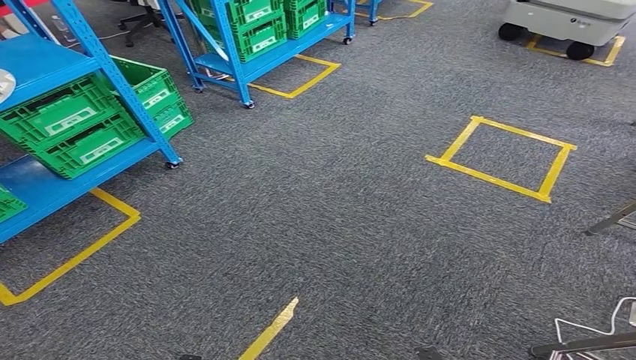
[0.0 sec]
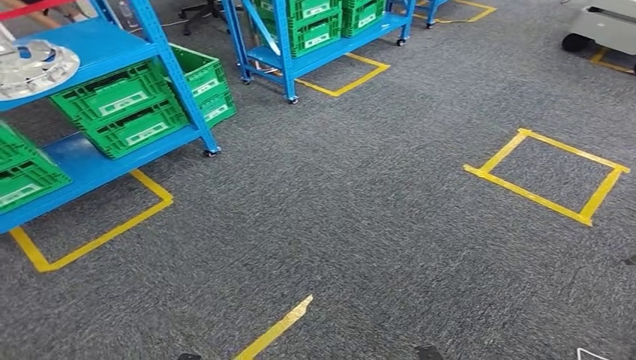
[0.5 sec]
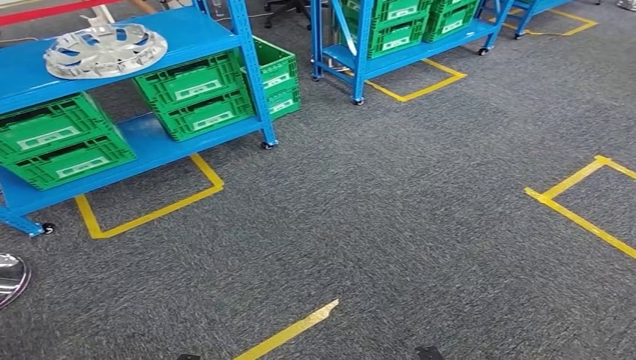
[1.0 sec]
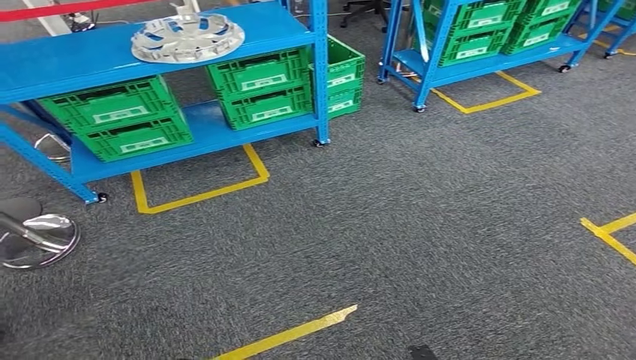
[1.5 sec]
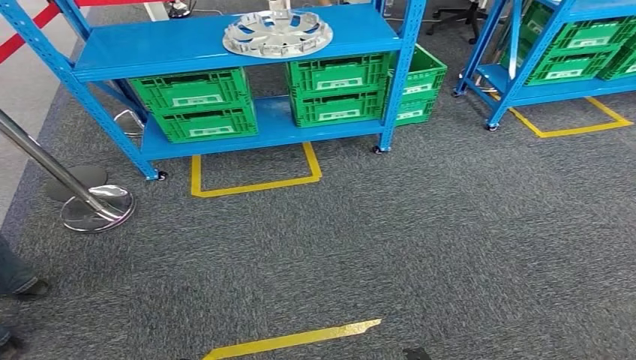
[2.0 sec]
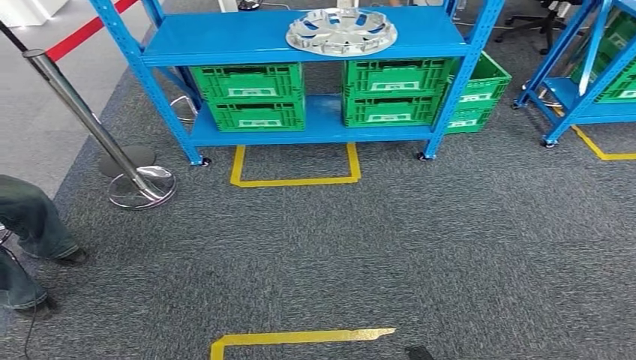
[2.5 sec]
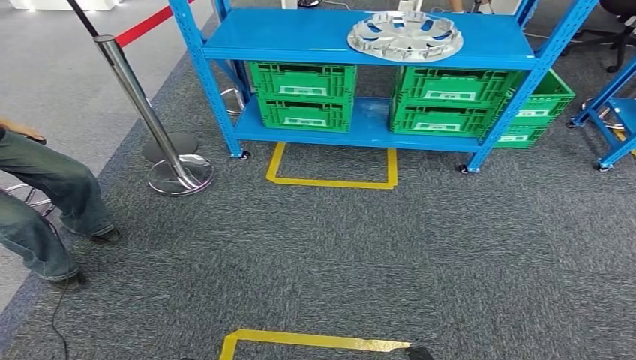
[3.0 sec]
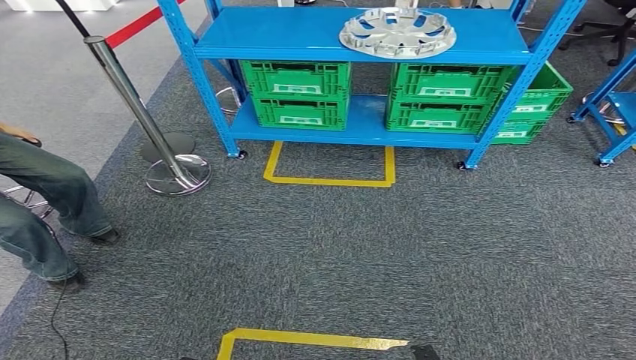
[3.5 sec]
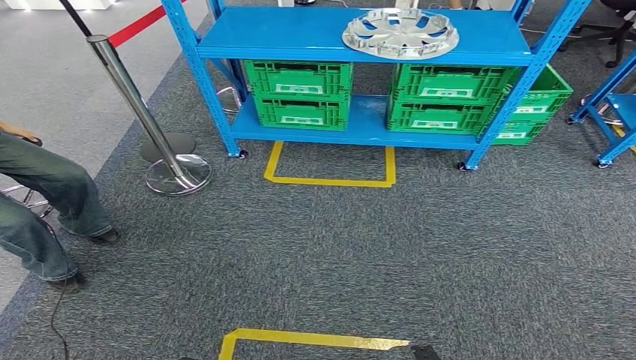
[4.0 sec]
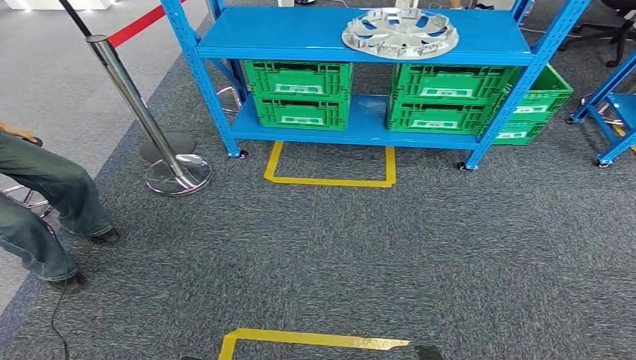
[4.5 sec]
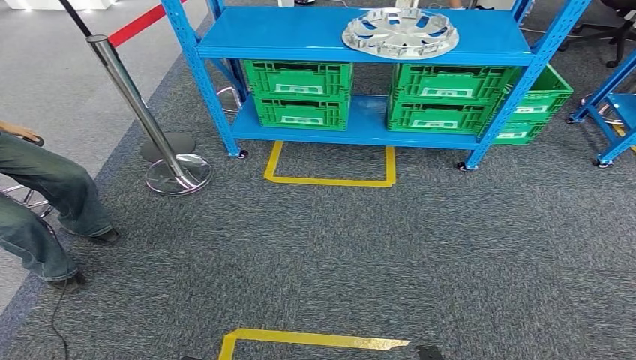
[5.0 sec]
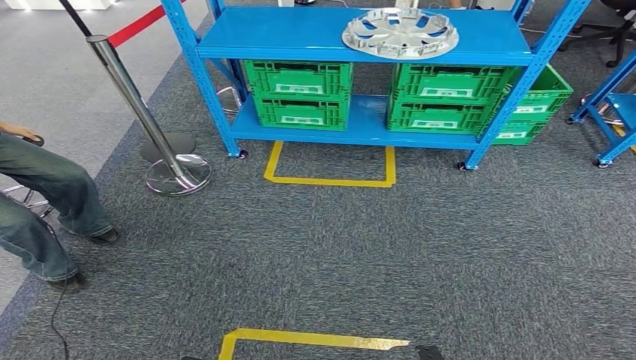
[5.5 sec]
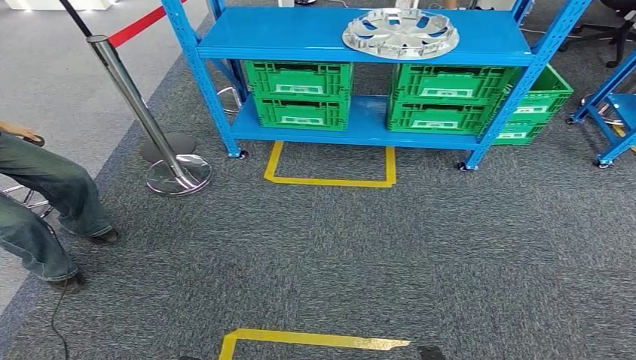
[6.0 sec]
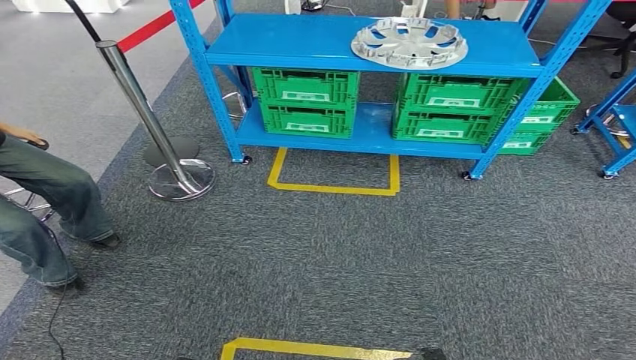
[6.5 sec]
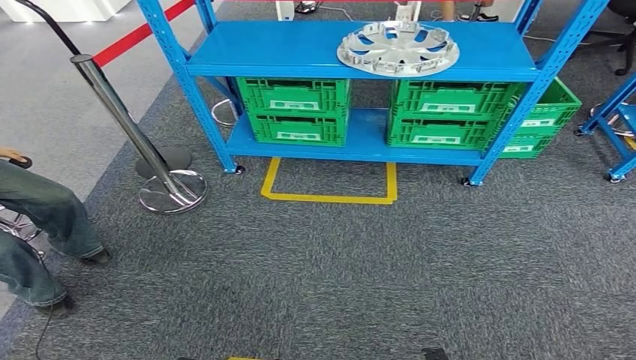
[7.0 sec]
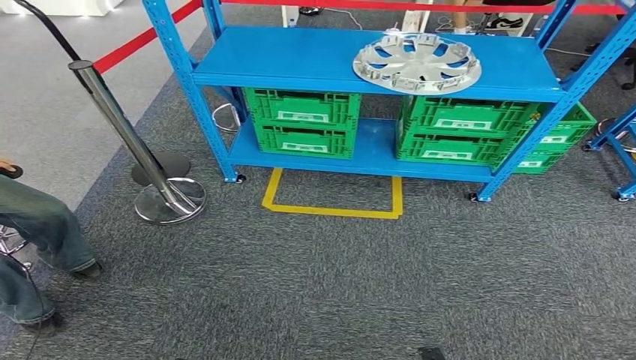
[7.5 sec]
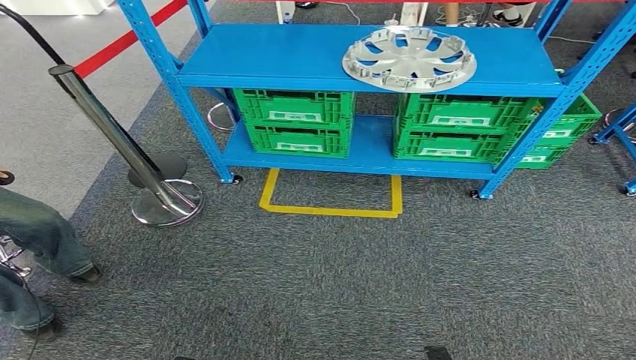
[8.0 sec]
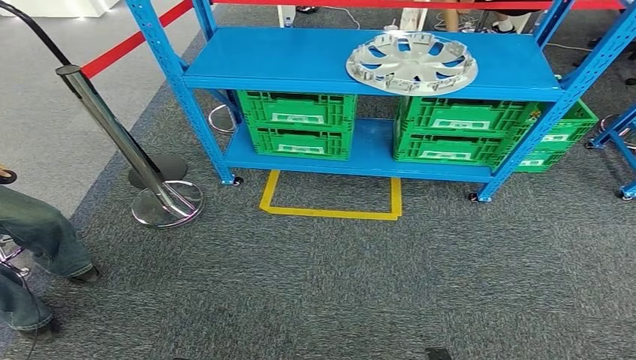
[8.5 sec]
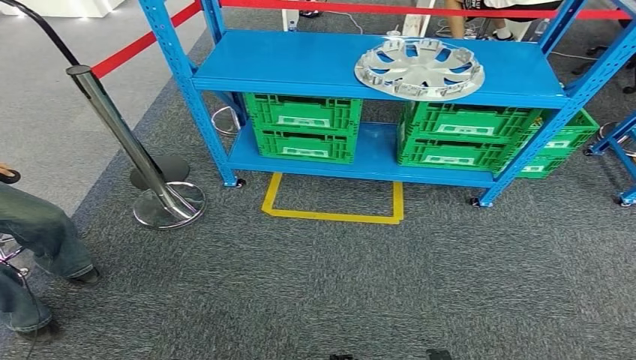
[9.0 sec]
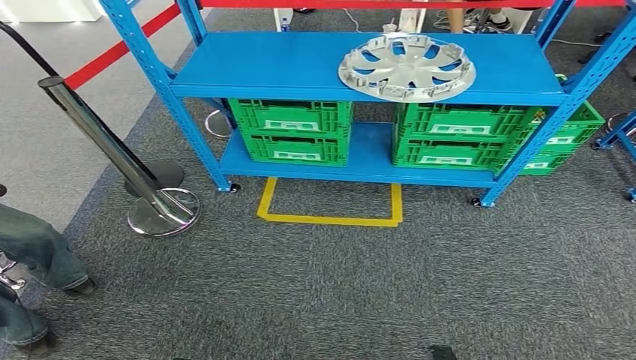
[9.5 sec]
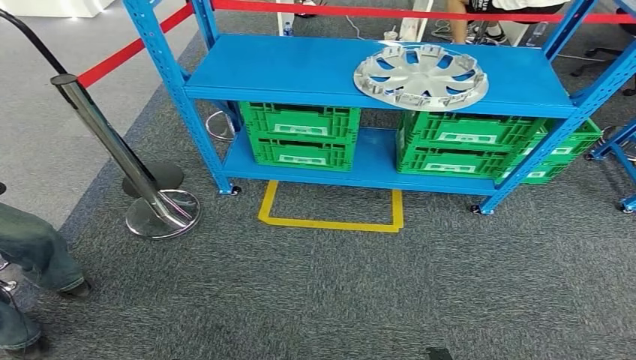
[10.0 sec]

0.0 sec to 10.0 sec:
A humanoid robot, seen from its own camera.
Step, 0.0 sec to 10.0 sec: Return to the initial position at the workbench.
4.0 sec to 6.0 sec: The two hands keep their place.
